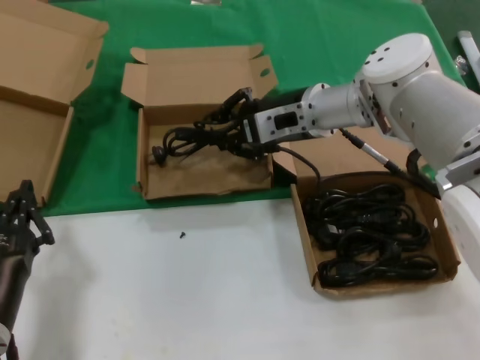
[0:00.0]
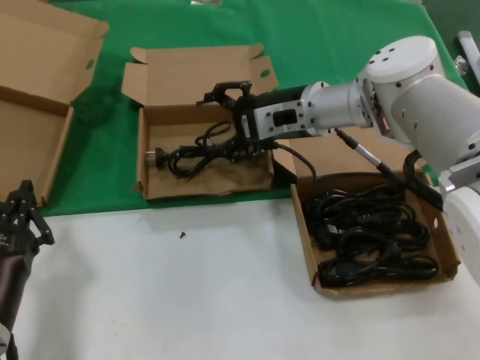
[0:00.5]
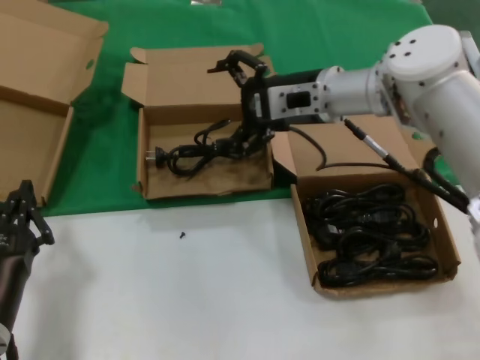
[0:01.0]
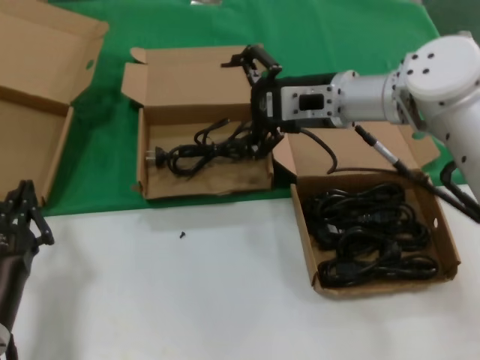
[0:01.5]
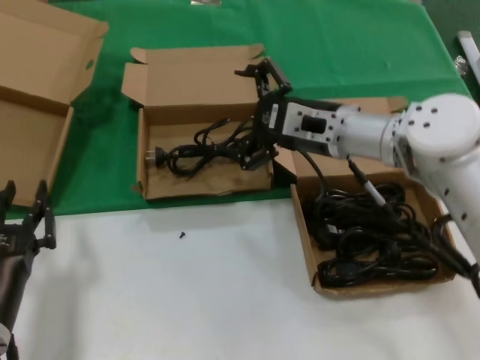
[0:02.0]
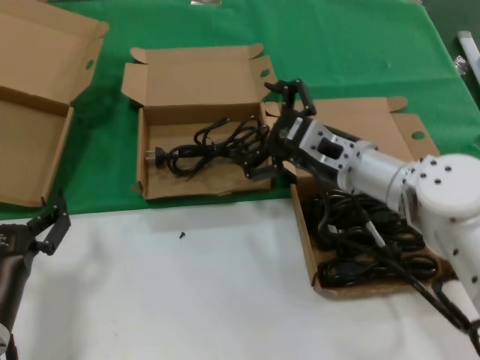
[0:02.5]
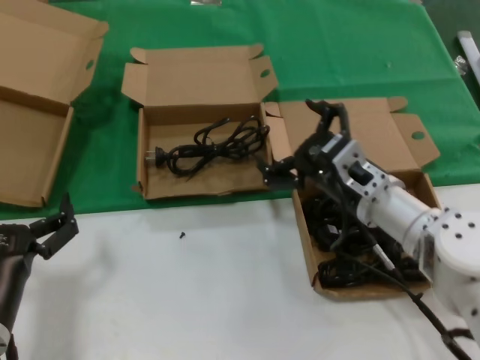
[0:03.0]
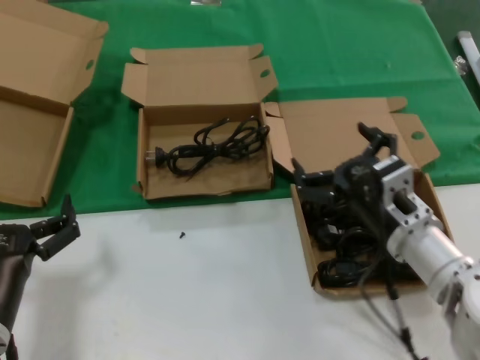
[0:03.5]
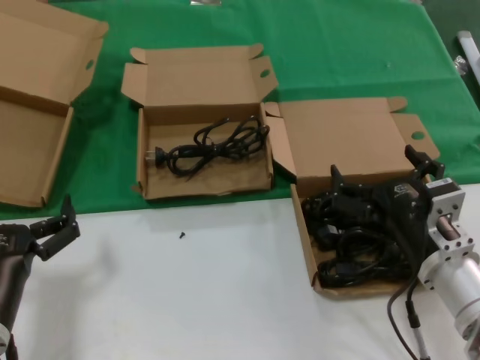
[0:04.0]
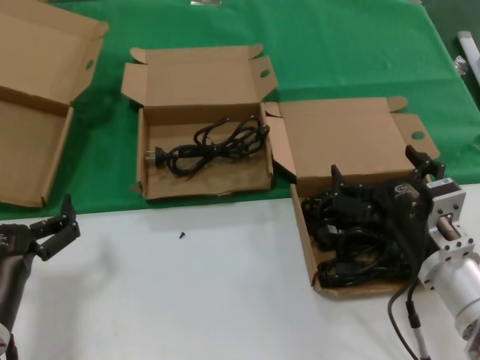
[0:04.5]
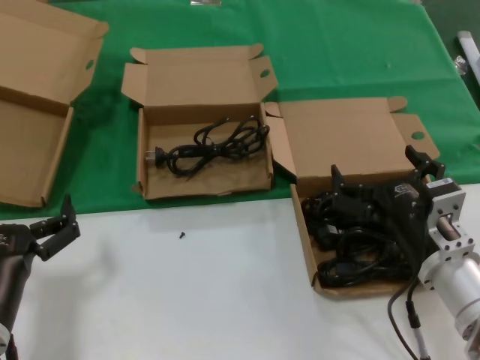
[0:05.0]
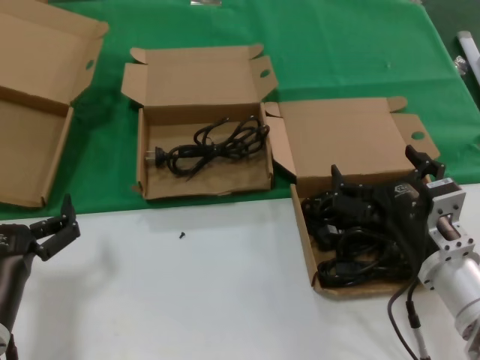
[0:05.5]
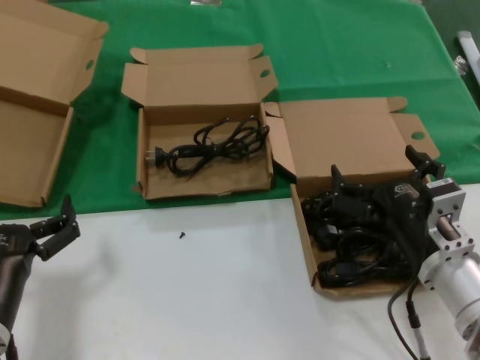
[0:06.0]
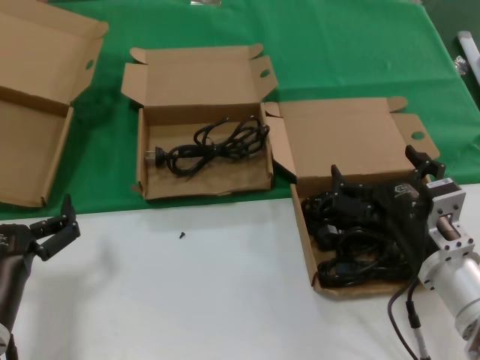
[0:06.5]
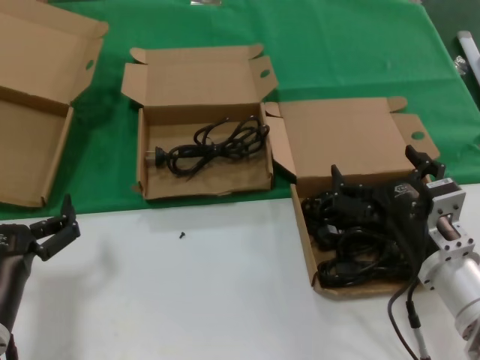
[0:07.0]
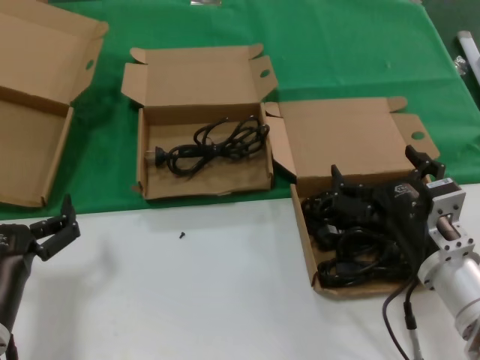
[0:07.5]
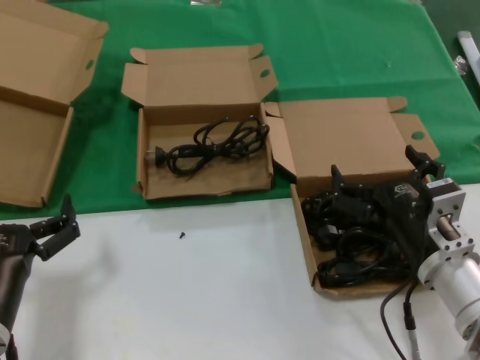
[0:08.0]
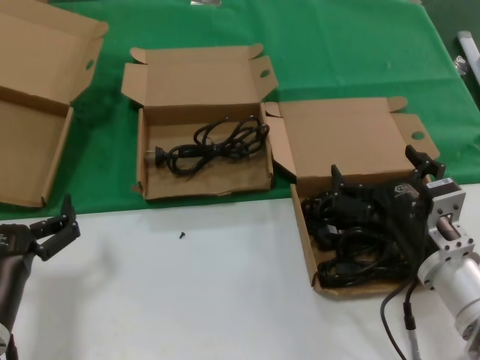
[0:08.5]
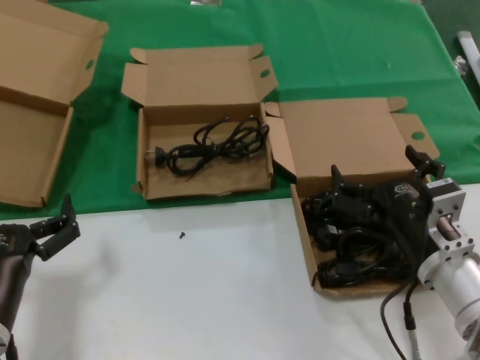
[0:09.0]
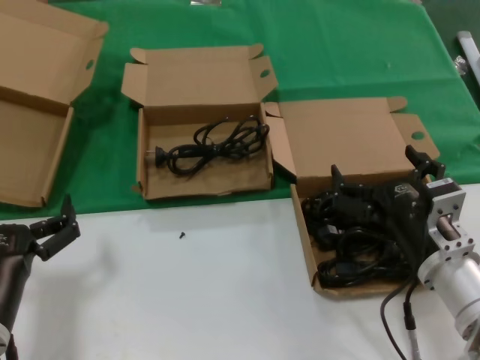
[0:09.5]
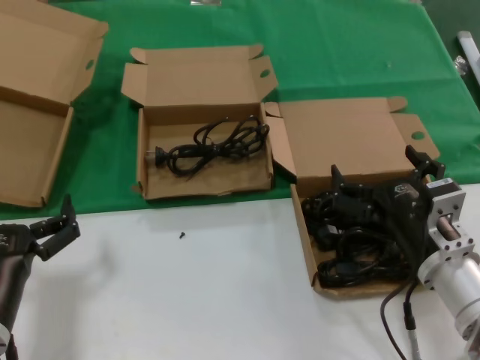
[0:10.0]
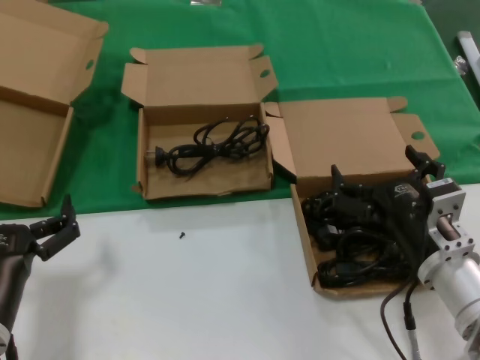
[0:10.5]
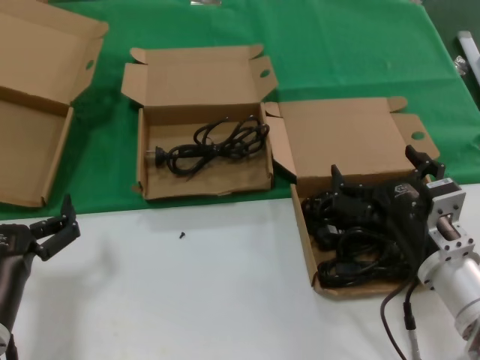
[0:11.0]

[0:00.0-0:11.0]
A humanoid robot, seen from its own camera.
Task of the whole recording: take the parts from the box containing them and put them into an empty box.
0:00.0 to 0:02.0: The right hand is displaced backward by roughly 5 cm.
0:02.0 to 0:03.5: The right hand goes approximately 20 cm backward and downward.
0:03.5 to 0:05.5: The right hand is displaced backward by roughly 5 cm.
0:05.5 to 0:11.0: Both hands stay put.

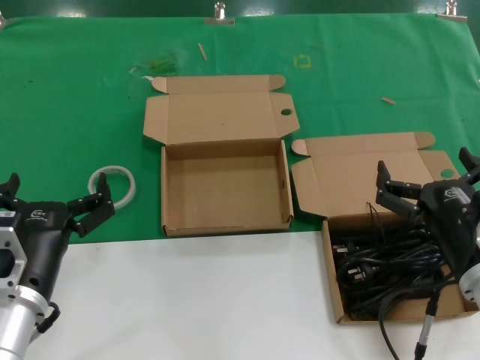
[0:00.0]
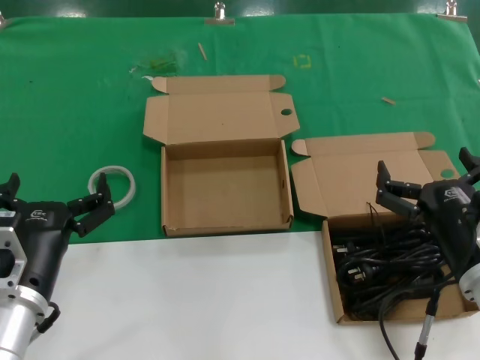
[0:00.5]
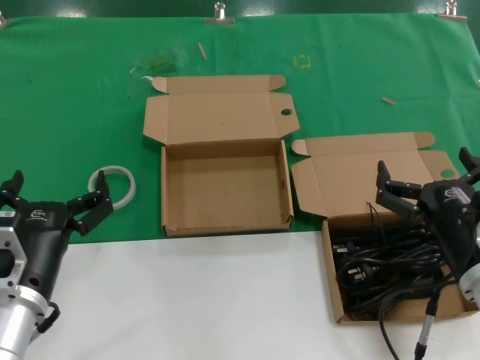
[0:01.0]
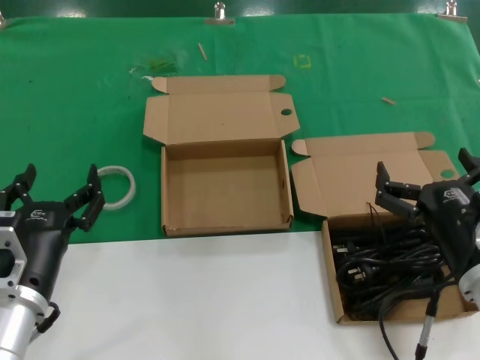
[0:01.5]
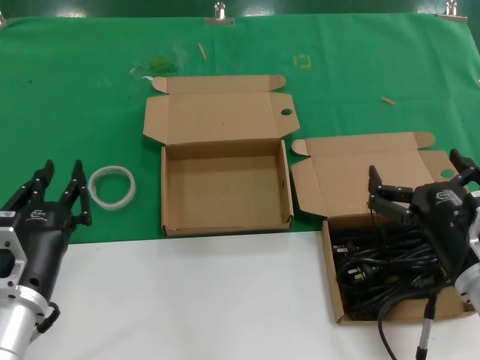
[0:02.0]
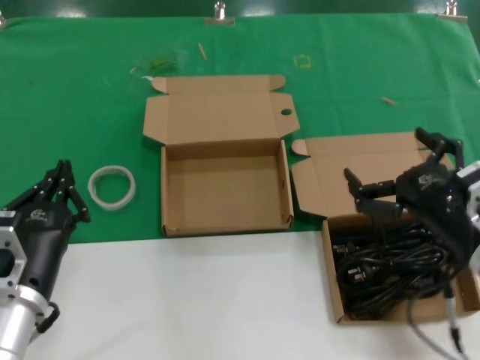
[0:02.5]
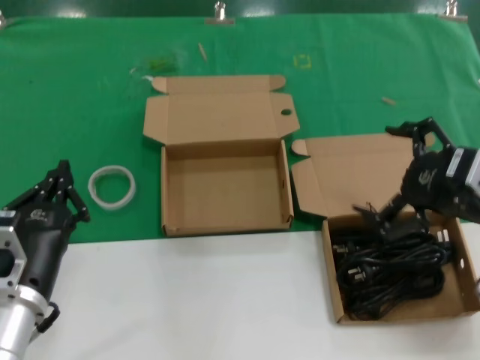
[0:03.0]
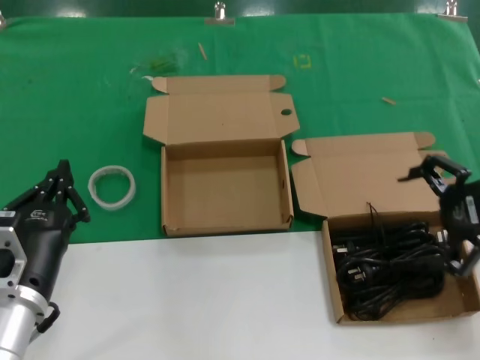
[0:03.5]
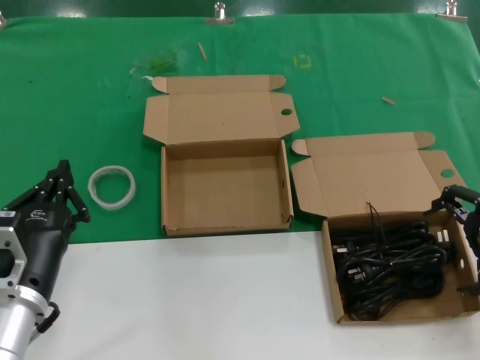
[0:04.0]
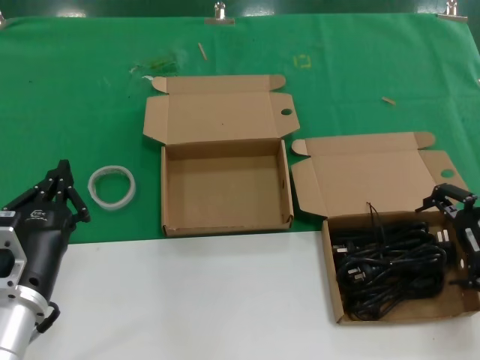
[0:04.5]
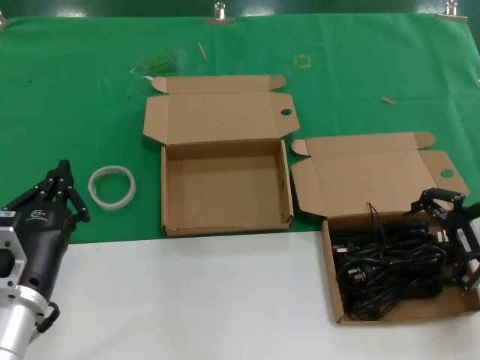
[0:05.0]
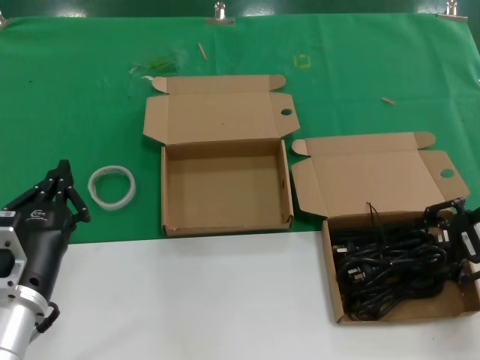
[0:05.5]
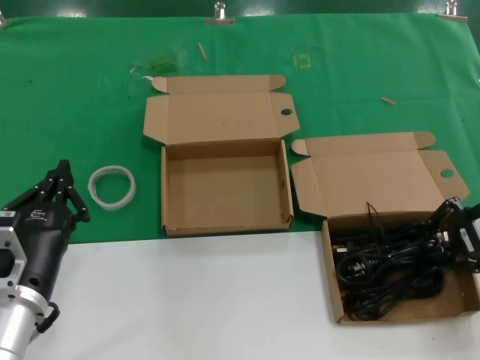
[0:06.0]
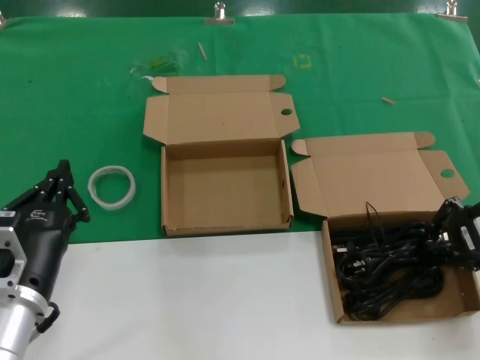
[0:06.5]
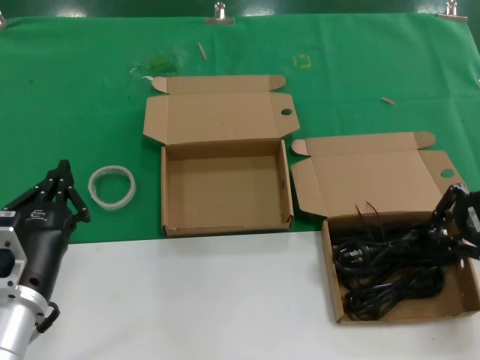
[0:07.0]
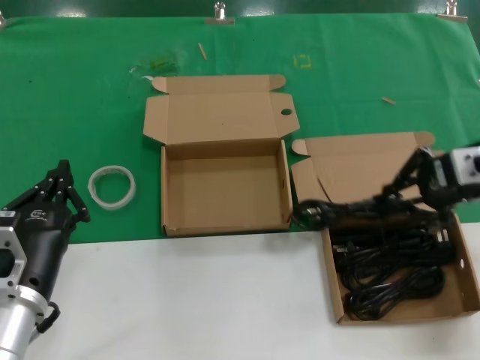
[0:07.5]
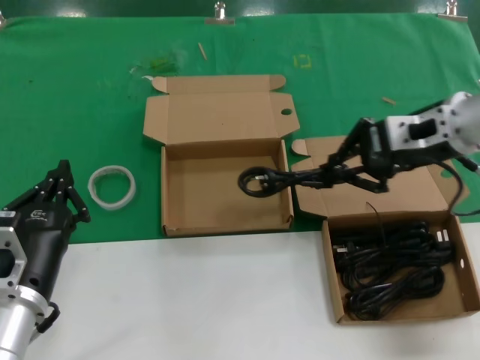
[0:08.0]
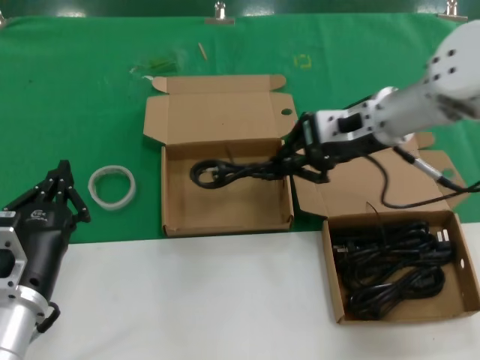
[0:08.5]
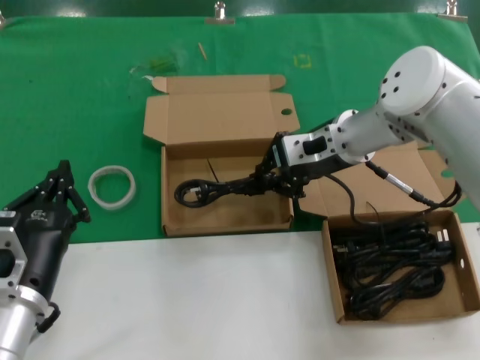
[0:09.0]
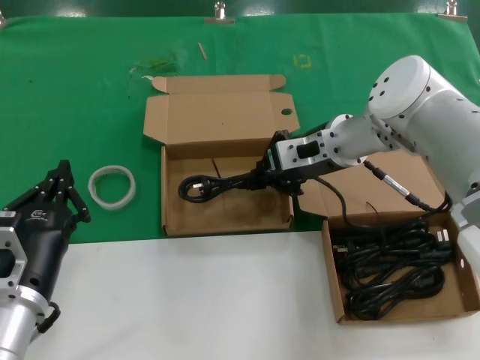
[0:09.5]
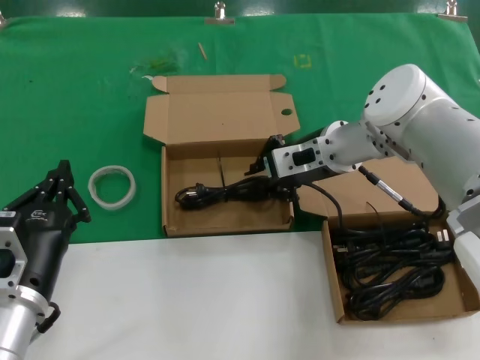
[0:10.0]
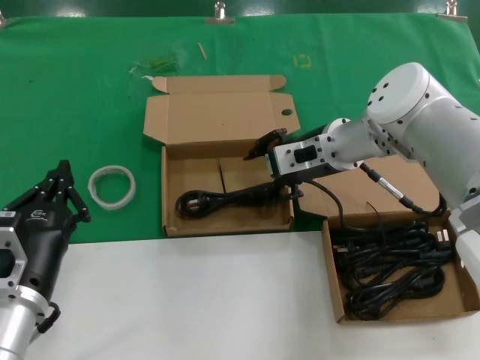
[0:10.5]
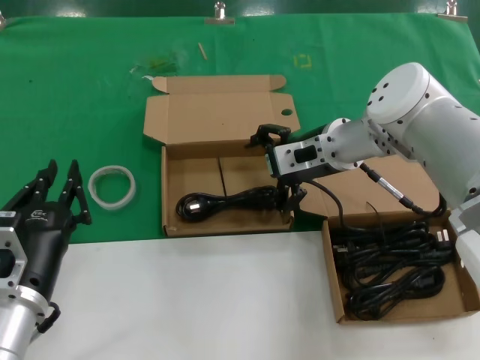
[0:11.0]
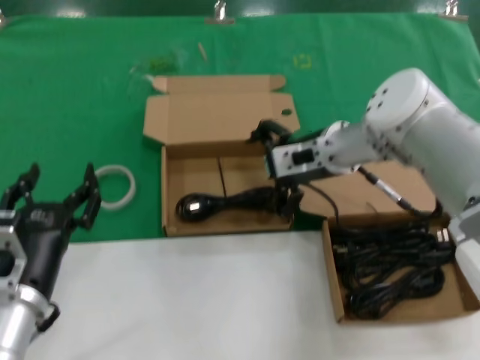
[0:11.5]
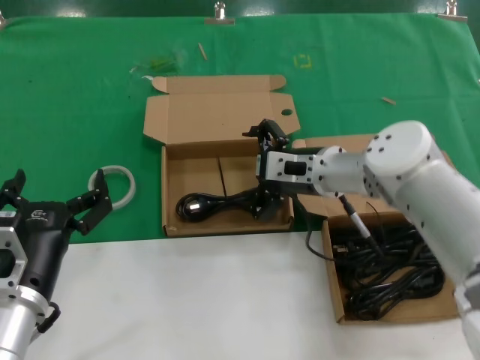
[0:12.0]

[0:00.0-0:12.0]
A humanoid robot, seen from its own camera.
Task of the whole recording: take the parts from the box containing them and put them into an empty box.
Step, 0:00.0 to 0:06.0: Grasp the data cable.
Step, 0:06.5 to 0:10.0: Place the data cable in the another box.
0:00.0 to 0:02.0: Both hands stay about where they are.
0:02.0 to 0:04.0: The right hand moves upward, to the right and forward, roughly 20 cm.
0:04.0 to 0:06.0: The hands move only a little.
0:06.0 to 0:08.0: The right hand goes some 15 cm to the left, upward and forward.
0:08.0 to 0:10.0: The right hand moves to the left, downward and forward, roughly 15 cm.
0:10.0 to 0:12.0: The right hand ends up about 5 cm from where it was.

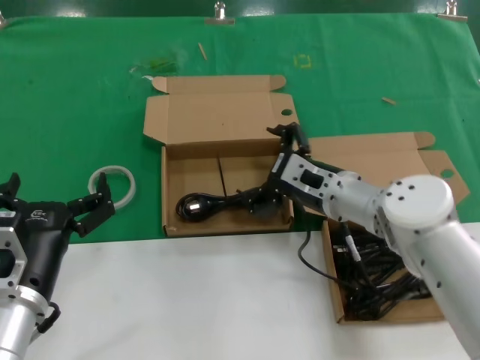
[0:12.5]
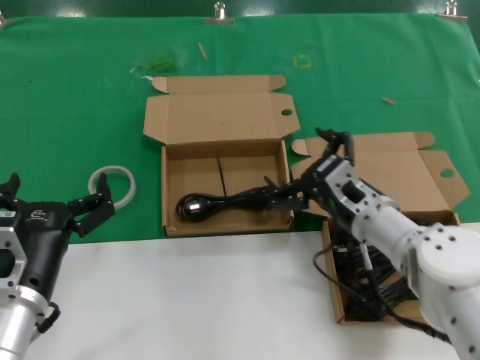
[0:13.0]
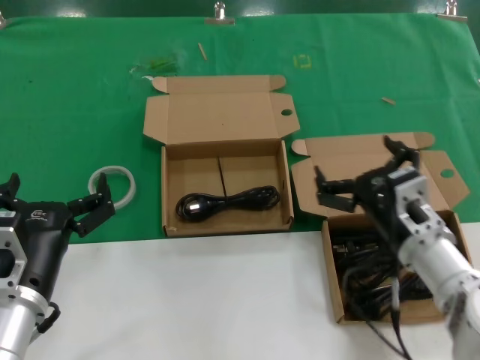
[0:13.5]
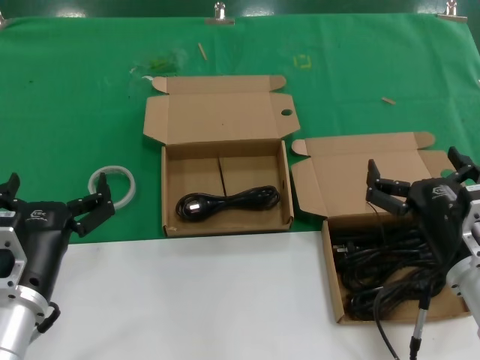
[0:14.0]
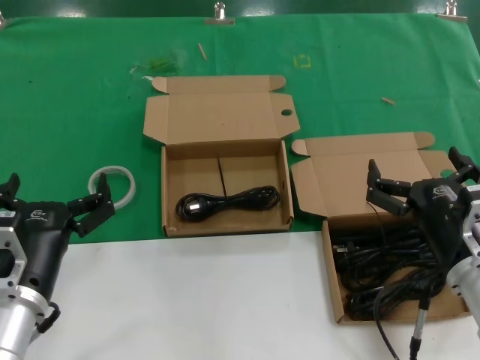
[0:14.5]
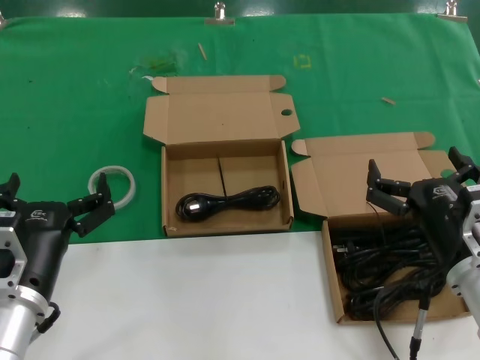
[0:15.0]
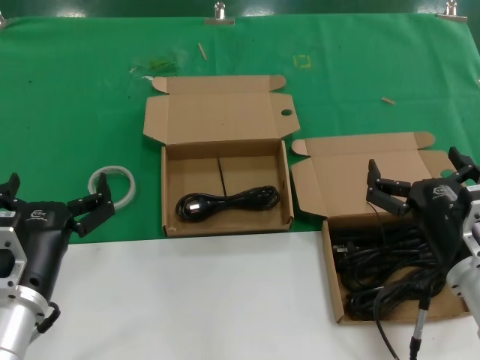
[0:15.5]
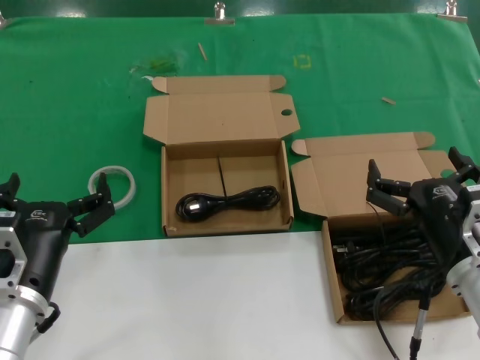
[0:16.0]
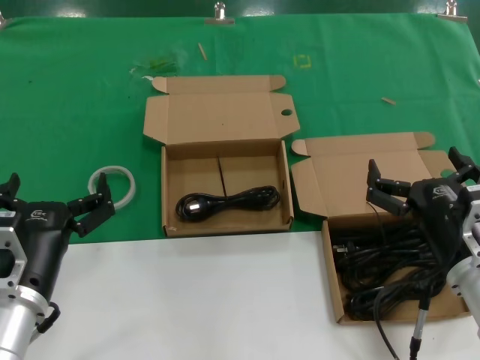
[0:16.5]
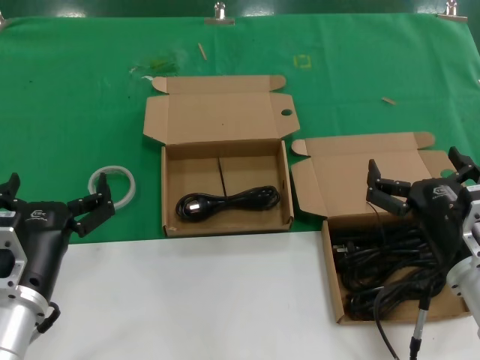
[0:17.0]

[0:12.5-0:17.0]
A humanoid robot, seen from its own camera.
Task of the whole recording: take the parts from the box containing them and put them into an empty box.
0:12.5 to 0:14.5: The right hand goes some 20 cm backward and to the right.
0:14.5 to 0:17.0: The two hands keep their place.
